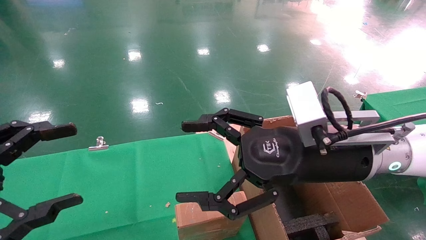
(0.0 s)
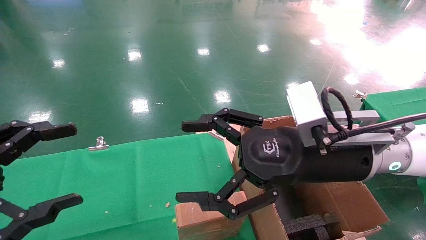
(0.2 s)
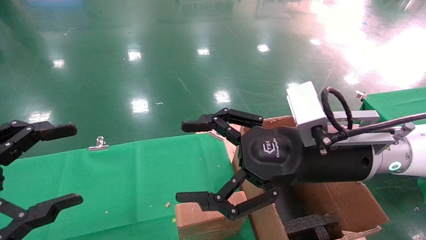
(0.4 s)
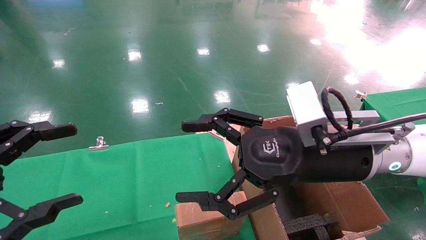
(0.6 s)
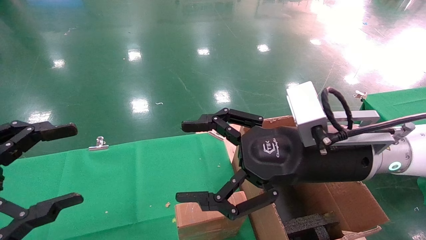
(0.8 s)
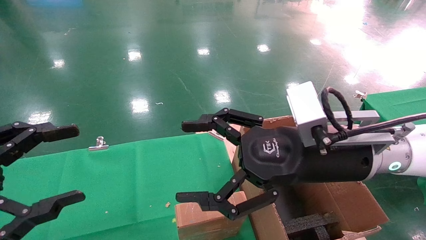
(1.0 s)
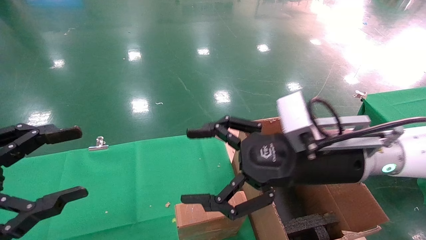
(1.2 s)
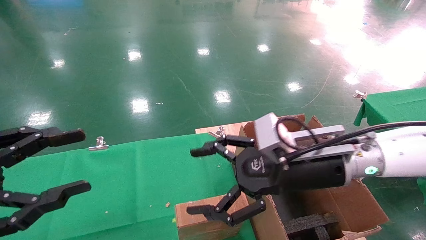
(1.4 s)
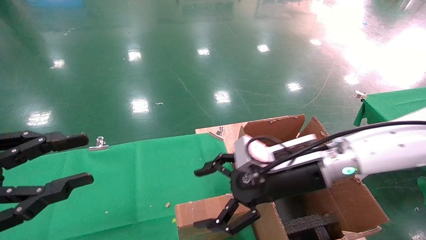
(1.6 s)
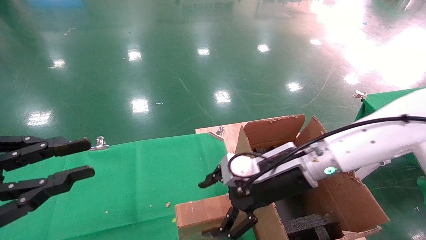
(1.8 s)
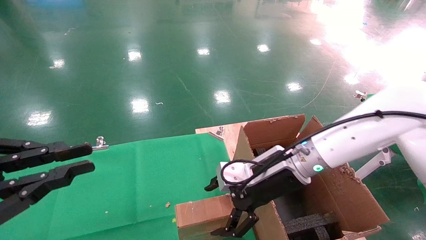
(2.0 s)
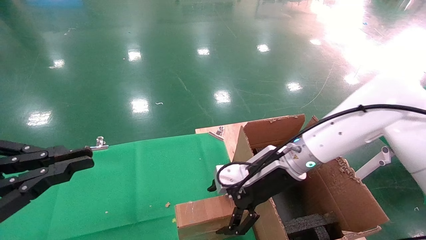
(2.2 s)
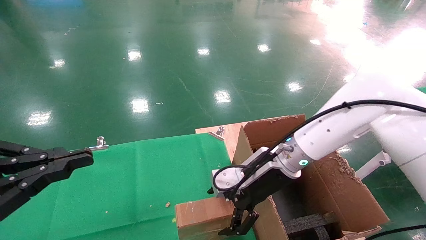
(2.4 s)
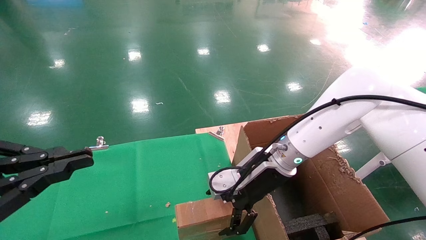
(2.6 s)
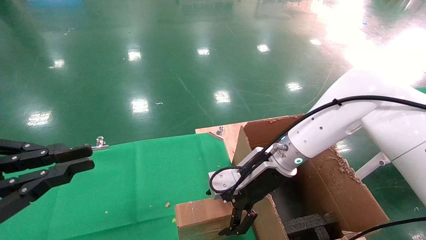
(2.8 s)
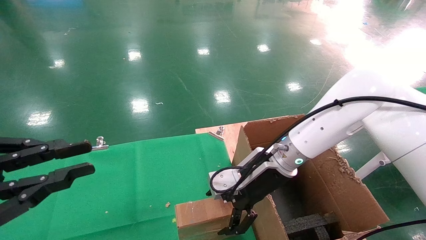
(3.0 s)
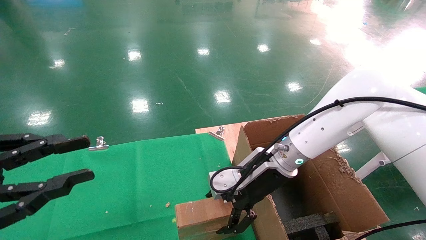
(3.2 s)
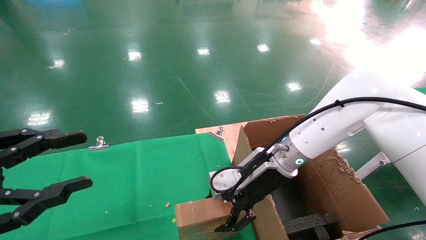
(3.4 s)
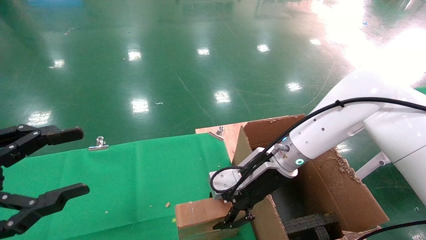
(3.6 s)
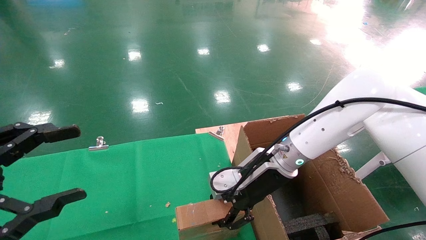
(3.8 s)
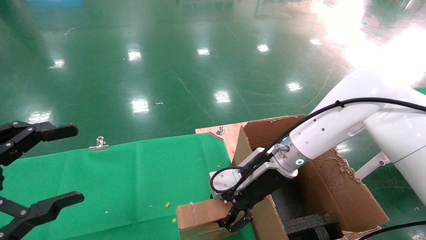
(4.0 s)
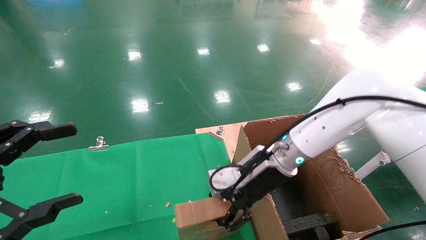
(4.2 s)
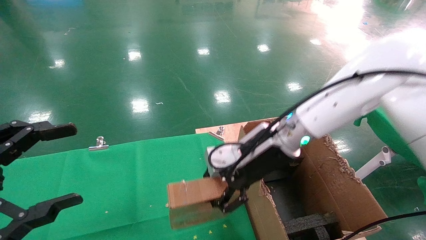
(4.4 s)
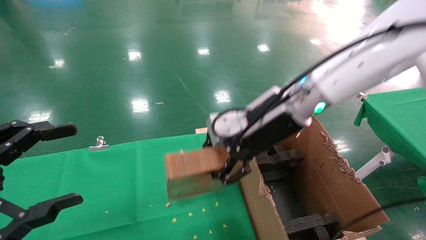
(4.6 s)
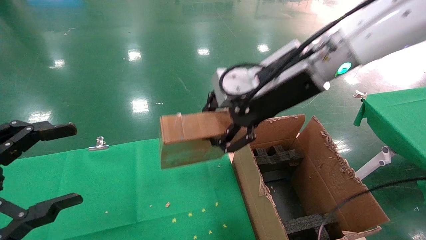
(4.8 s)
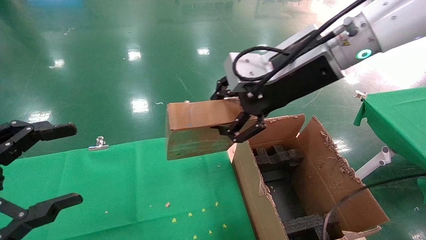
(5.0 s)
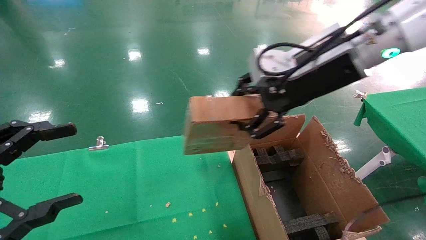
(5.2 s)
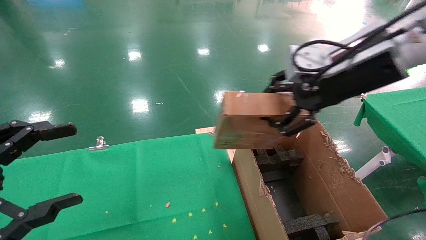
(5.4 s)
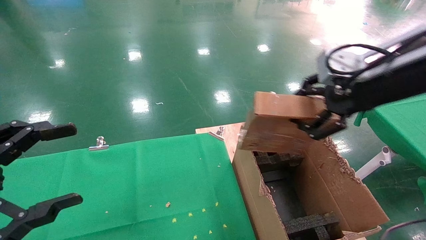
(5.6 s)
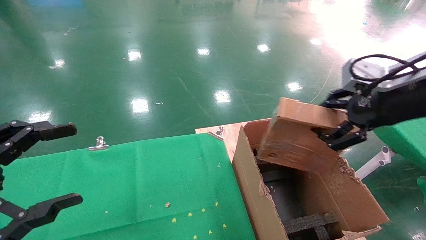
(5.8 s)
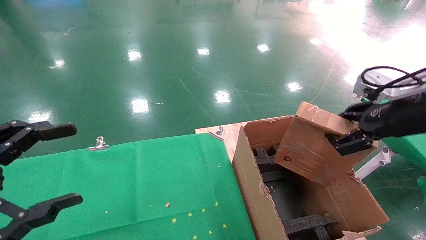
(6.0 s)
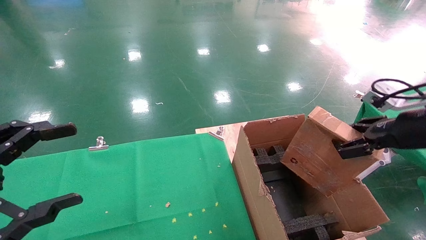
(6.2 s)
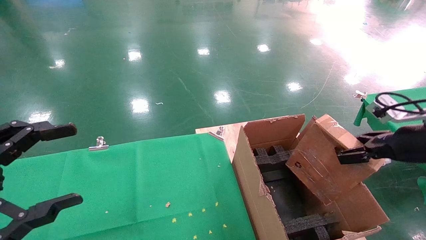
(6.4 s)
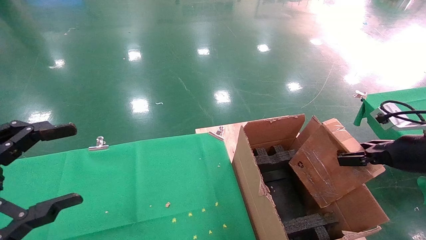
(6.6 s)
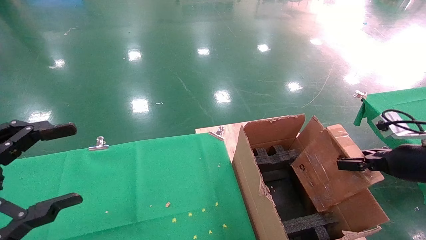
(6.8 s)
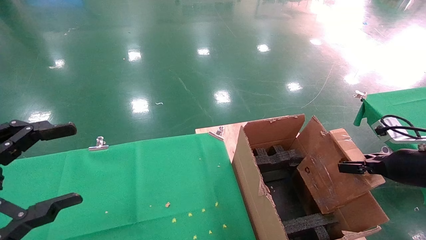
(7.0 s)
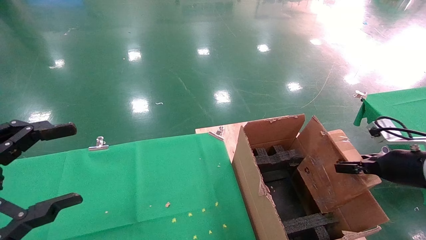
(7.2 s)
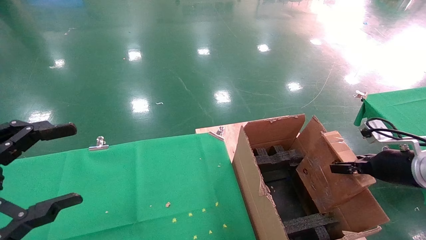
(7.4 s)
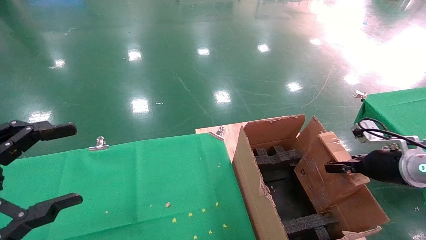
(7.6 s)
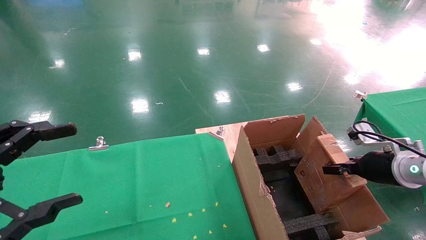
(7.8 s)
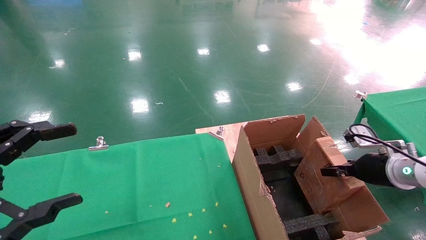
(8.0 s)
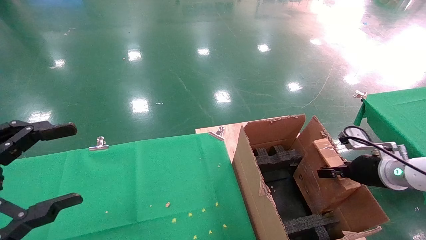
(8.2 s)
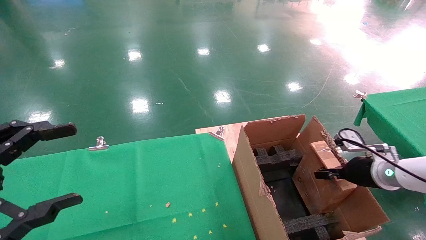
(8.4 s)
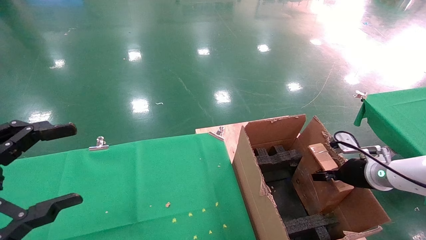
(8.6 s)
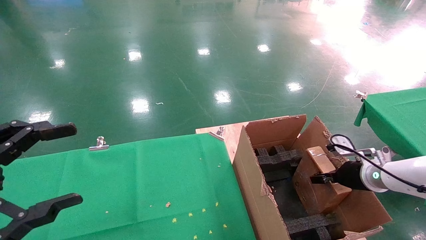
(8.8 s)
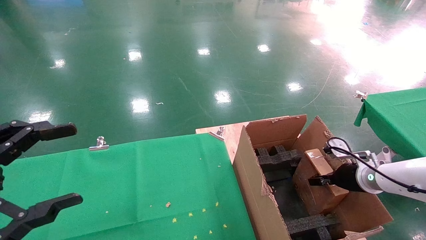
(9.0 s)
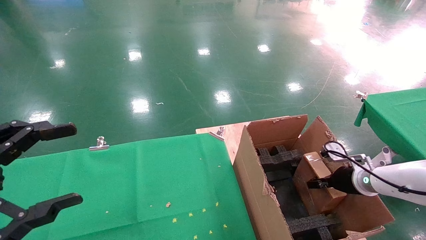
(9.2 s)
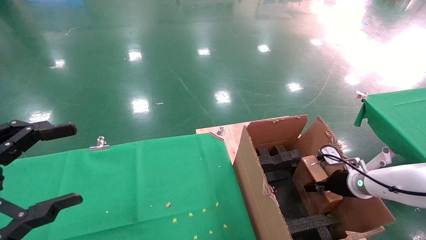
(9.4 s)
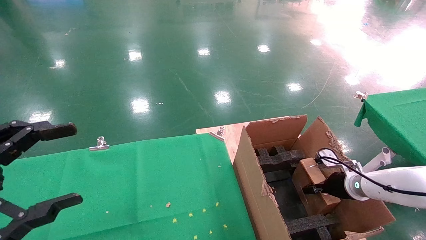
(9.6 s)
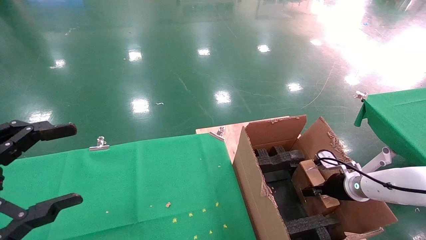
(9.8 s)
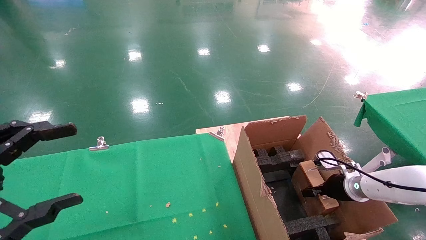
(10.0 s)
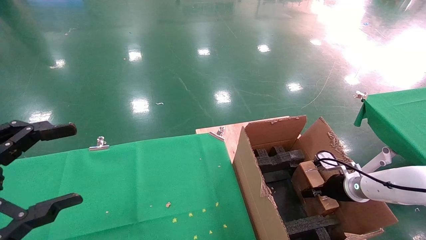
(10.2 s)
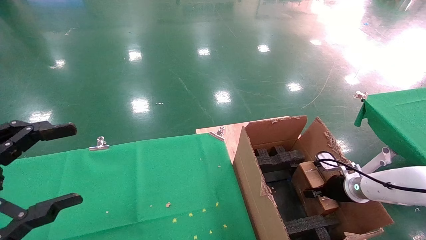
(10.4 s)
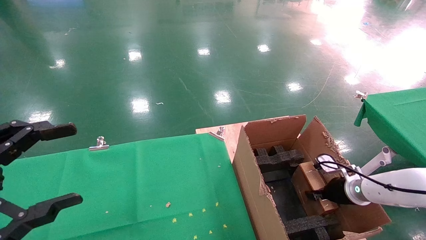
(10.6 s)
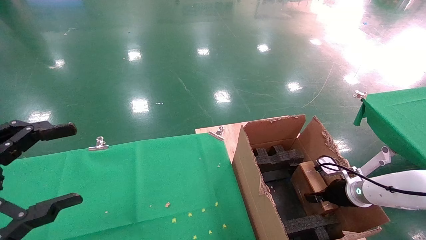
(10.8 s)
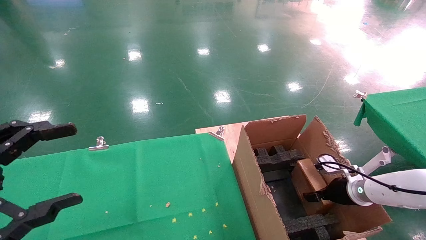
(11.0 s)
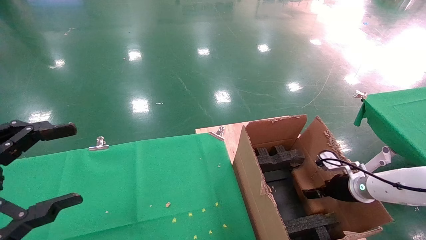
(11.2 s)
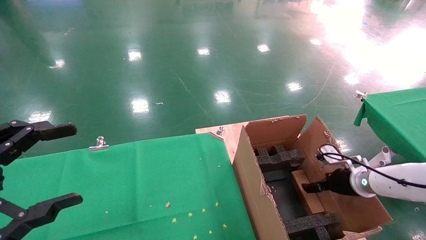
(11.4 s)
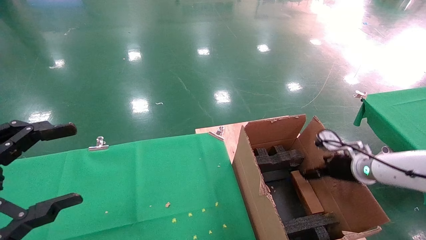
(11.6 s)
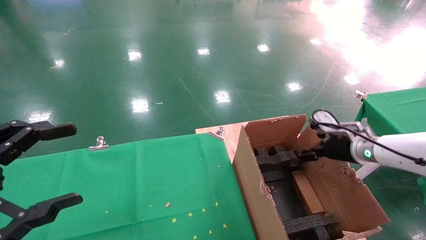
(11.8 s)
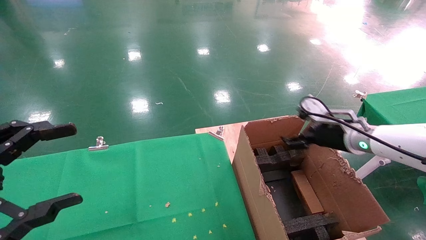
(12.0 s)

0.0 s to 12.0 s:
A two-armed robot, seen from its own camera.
Task of the whole recording: using a robotic arm to pick up a cardboard box and palace it the carton.
Step, 1.4 to 3.8 s: Pick up the mouse and the power cord paper box.
Step, 4.0 to 12.0 s: Place the mouse and the power cord paper box into the container.
0.0 to 1.6 s: The left gripper closes its fingers; the right gripper shifts approximately 10 cm downward and forward.
1.6 to 3.0 s: The left gripper closes its fingers. The right gripper is displaced forward by about 5 cm.
3.0 to 4.4 s: The right gripper is displaced upward by about 10 cm, and closes its fingers. The left gripper opens up.
4.4 to 6.0 s: The right gripper moves to the right and backward, some 25 cm.
6.0 to 7.6 s: The right gripper moves downward, approximately 15 cm.
7.6 to 9.0 s: The right gripper goes approximately 10 cm downward and forward.
9.0 to 10.4 s: The right gripper travels downward by about 5 cm.
10.4 to 12.0 s: The right gripper goes roughly 15 cm upward and to the left, and opens up.

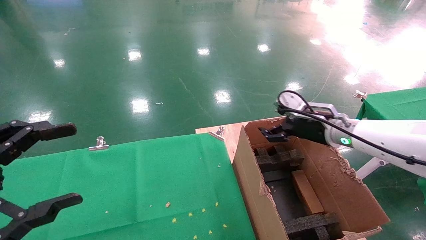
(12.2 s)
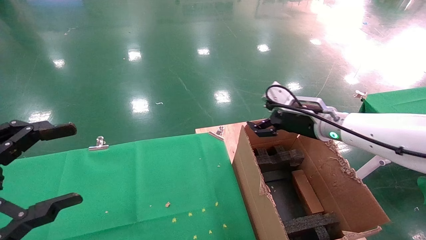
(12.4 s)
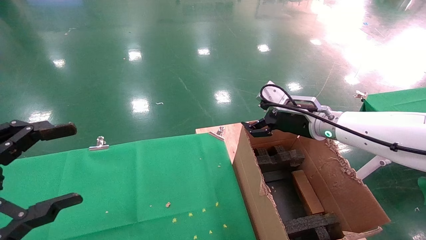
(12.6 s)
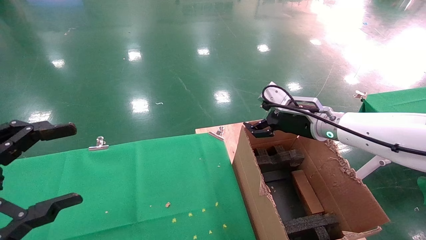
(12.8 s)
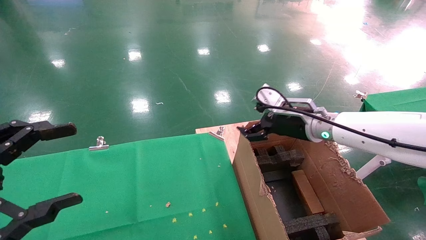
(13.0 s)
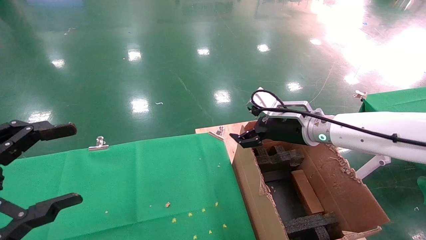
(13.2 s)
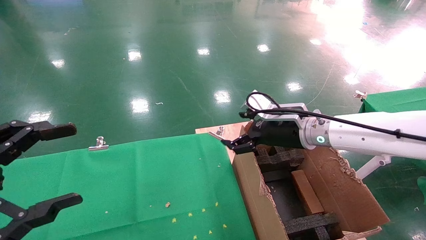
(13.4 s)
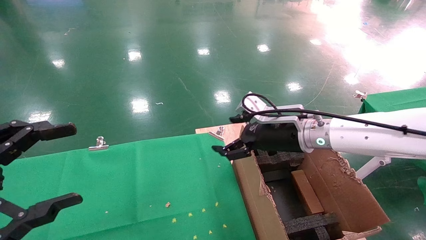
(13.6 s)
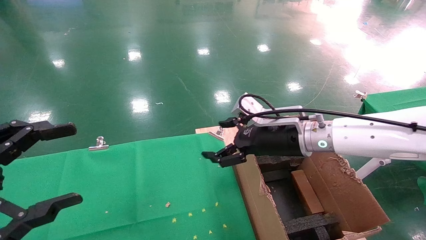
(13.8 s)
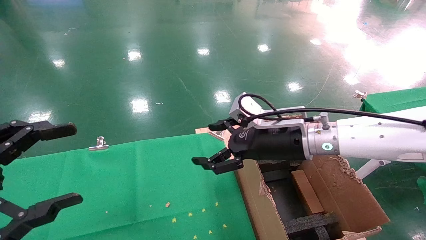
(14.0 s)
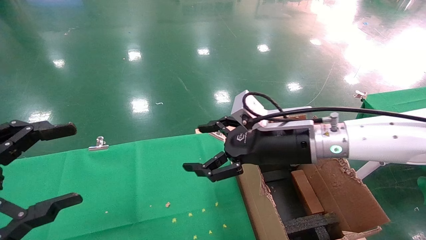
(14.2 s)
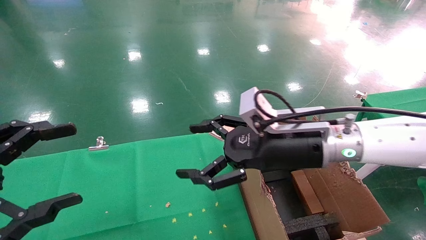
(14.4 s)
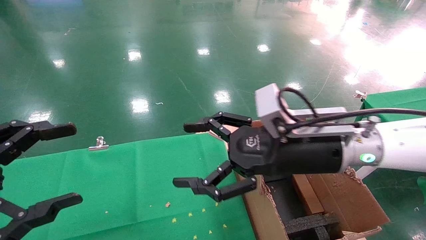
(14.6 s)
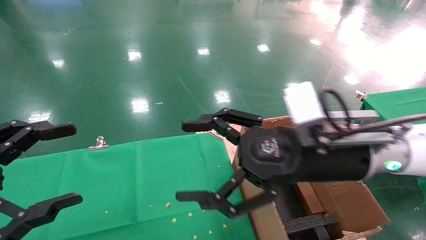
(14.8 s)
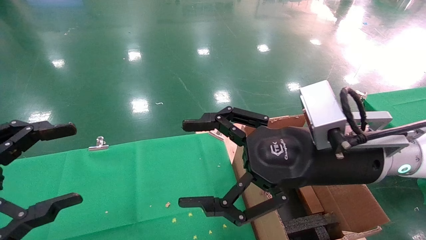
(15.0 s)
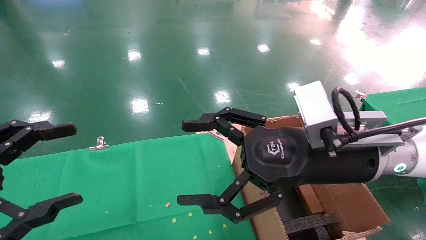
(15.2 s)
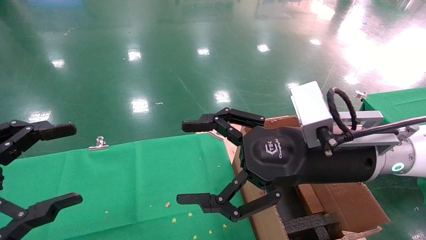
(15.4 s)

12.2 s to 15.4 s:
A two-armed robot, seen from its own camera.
Task of the whole recording: using a robotic arm to pick up a cardboard box and palace it the carton.
12.2 to 13.8 s: The right gripper heads to the left, covering about 10 cm.
13.8 to 15.4 s: The right gripper travels backward by roughly 10 cm.

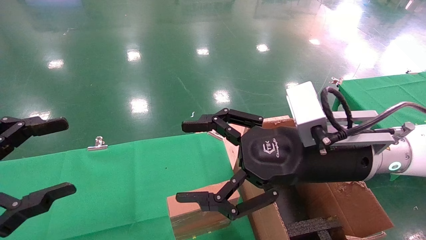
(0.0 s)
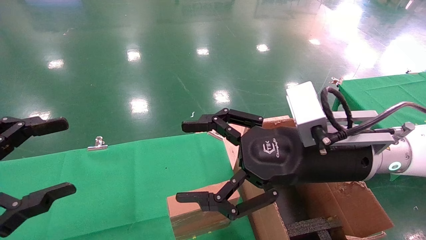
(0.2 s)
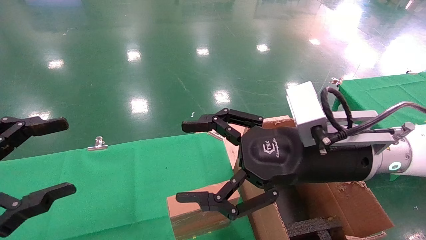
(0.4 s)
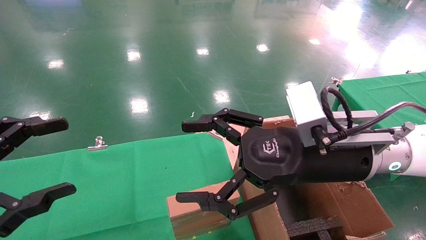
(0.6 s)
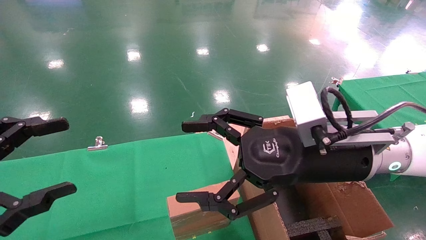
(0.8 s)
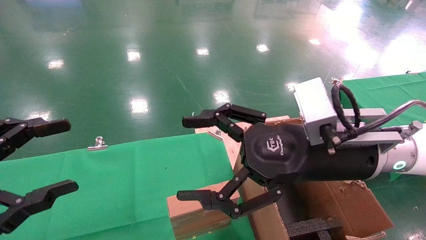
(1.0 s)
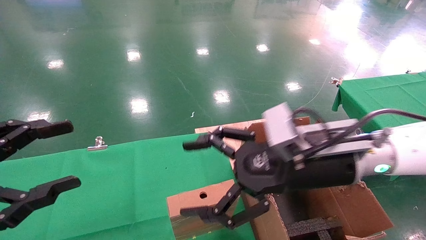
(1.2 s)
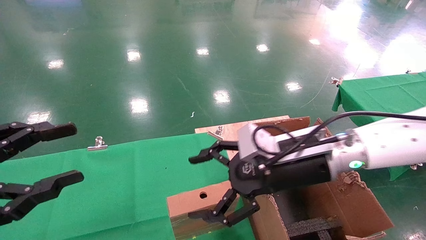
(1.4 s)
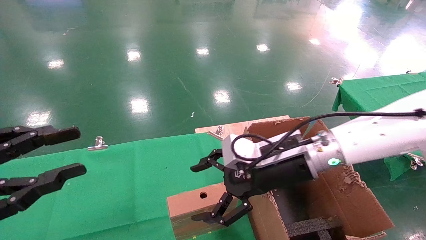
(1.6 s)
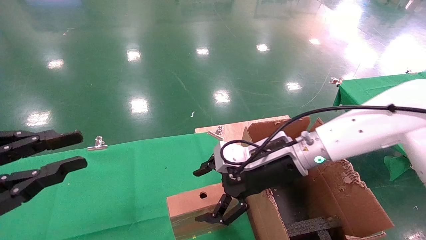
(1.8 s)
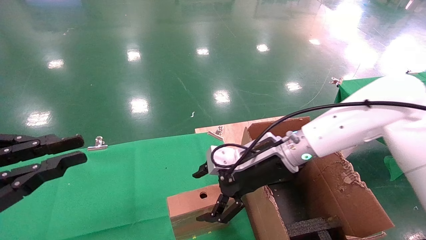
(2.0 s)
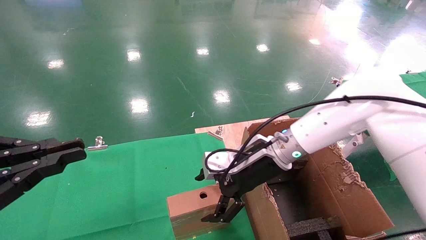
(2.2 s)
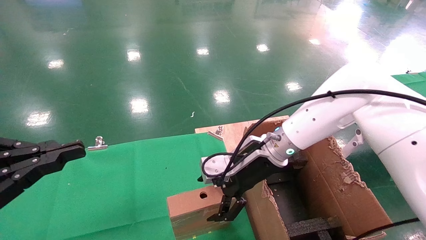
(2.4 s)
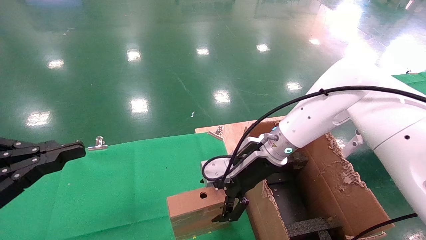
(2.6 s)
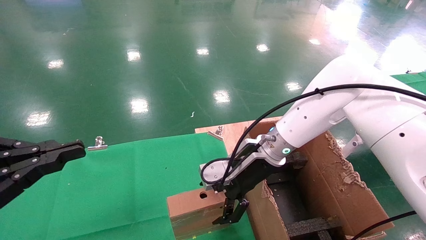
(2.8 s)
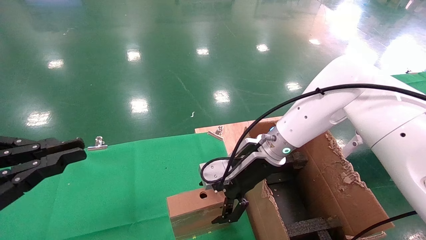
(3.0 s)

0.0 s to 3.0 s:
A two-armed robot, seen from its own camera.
Task of the whole recording: using a robotic arm to pick up a cardboard box and palace it the carton.
0.0 to 1.6 s: The left gripper closes. The right gripper shifts about 5 cm forward.
1.6 to 3.0 s: The right gripper is displaced forward by about 5 cm. The left gripper closes up.
